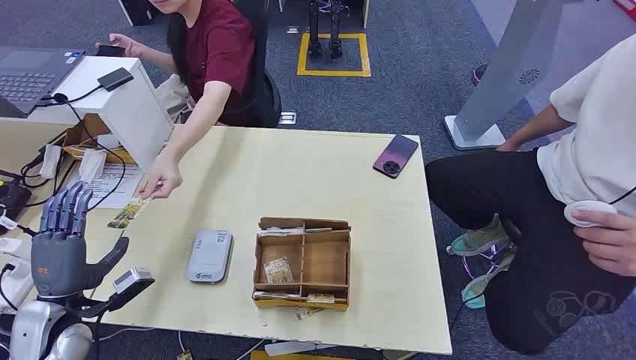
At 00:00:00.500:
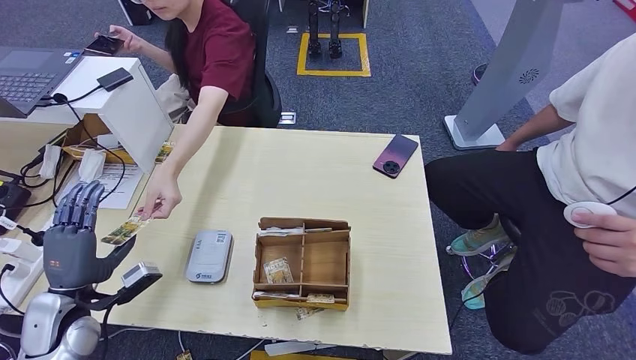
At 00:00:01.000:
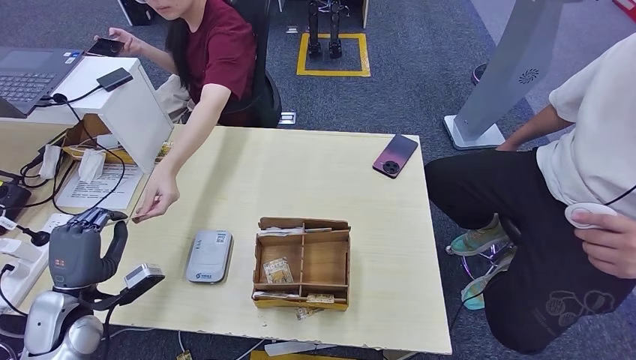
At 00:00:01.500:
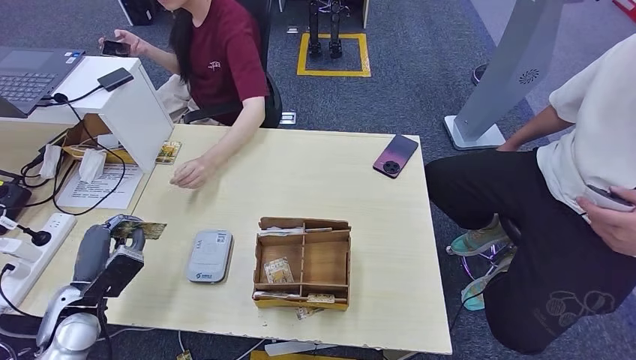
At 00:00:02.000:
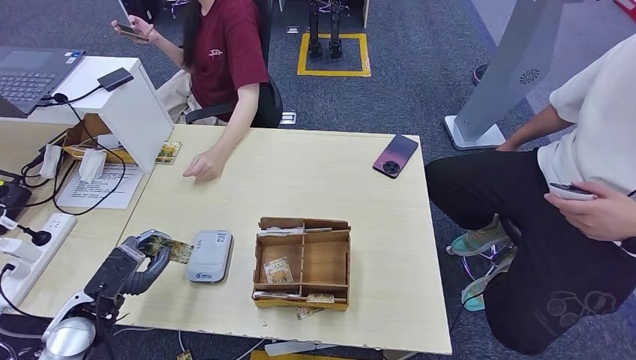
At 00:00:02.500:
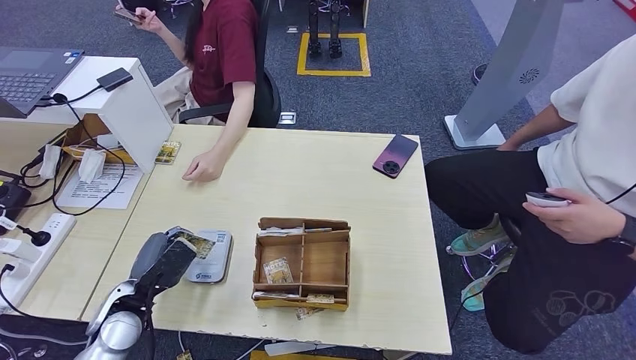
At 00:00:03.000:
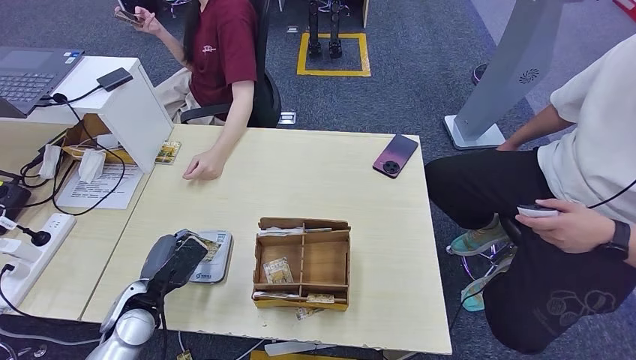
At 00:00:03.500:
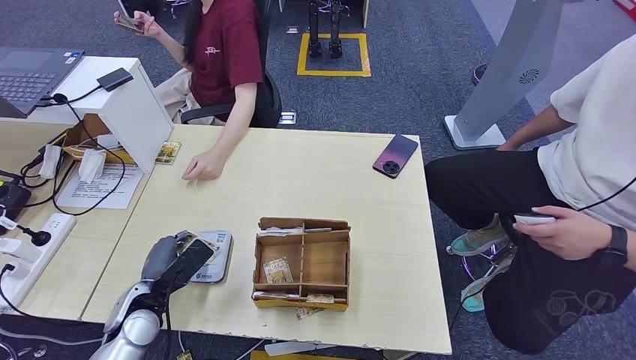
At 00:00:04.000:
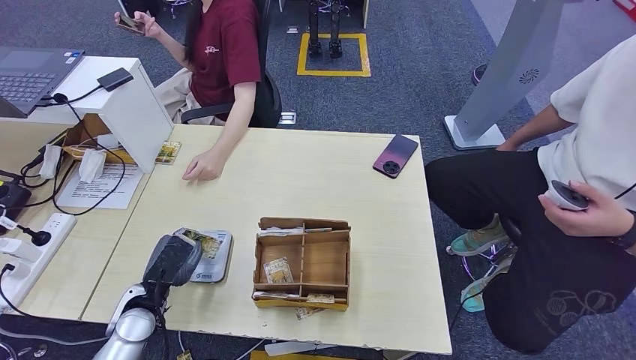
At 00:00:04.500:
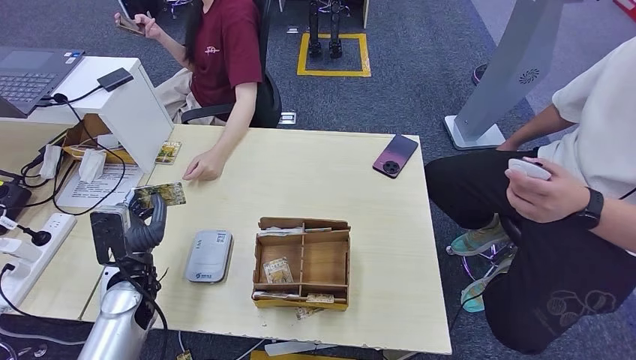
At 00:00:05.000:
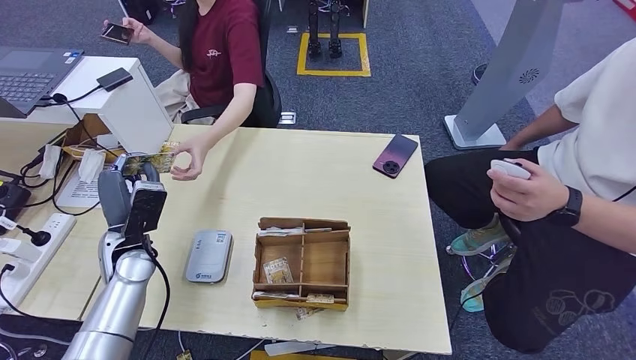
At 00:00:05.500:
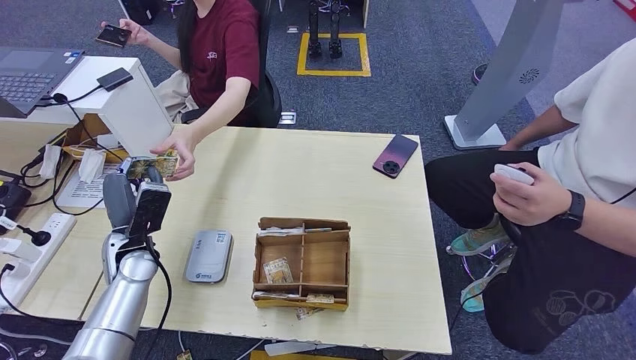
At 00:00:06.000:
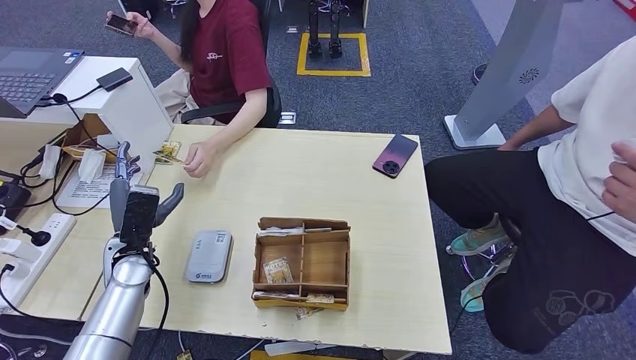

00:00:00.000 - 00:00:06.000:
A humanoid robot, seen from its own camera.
Step, 00:00:00.000 - 00:00:00.500: Take the ID card from the person's hand.
Step, 00:00:01.000 - 00:00:03.500: Place the ID card on the card reader.
Step, 00:00:04.500 - 00:00:06.000: Hand the ID card to the person.
00:00:02.000 - 00:00:04.000: The left hand moves to the right, roughly 5 cm.
00:00:04.000 - 00:00:06.000: The left hand moves forward and upward, roughly 10 cm.
